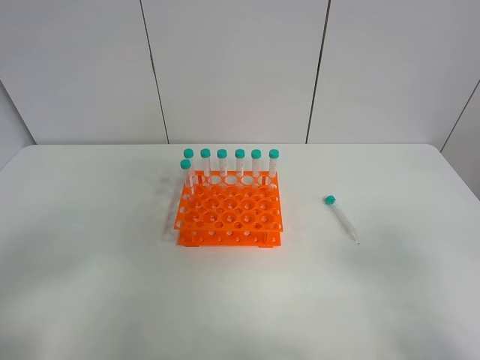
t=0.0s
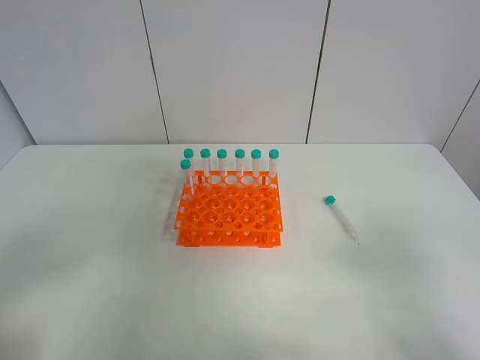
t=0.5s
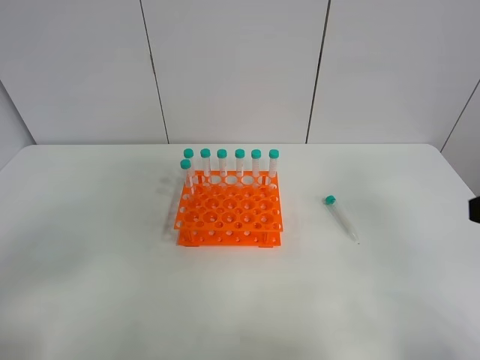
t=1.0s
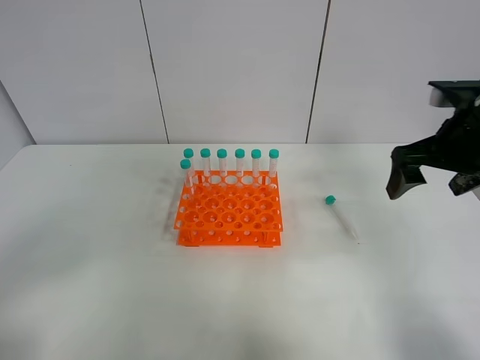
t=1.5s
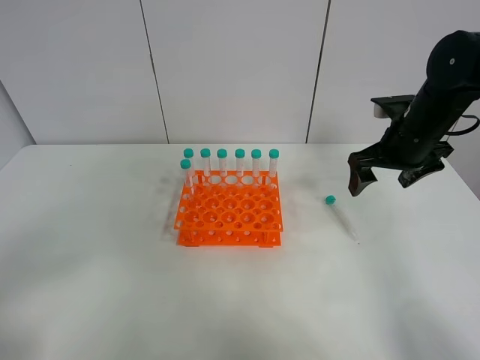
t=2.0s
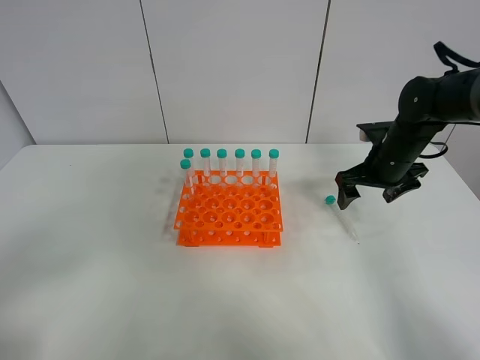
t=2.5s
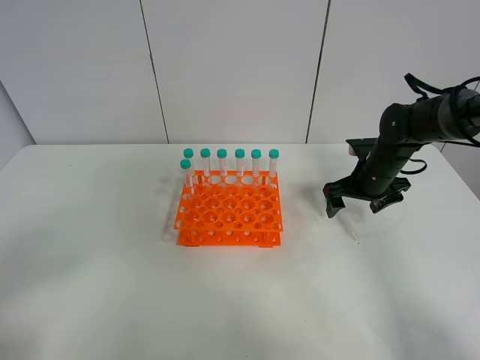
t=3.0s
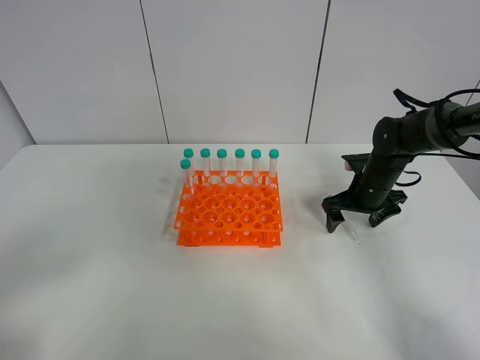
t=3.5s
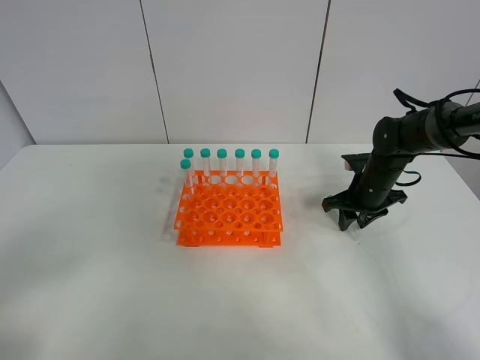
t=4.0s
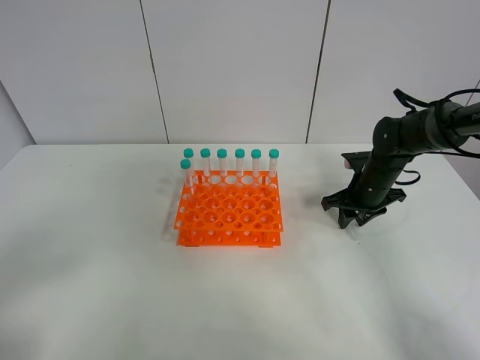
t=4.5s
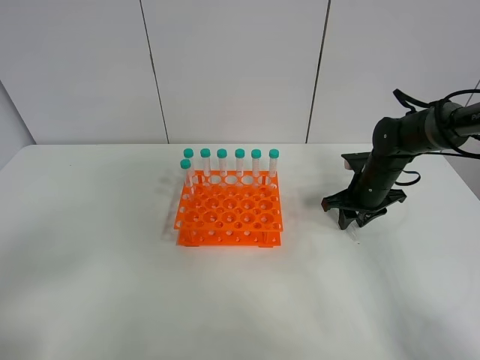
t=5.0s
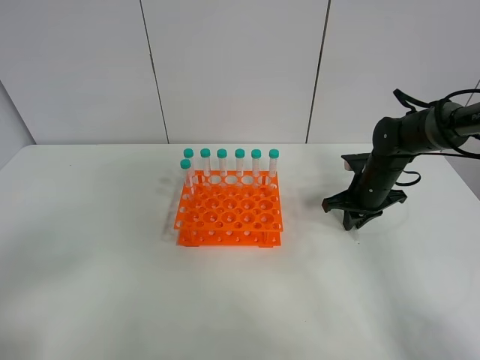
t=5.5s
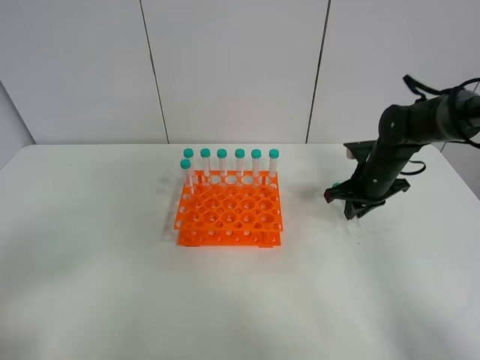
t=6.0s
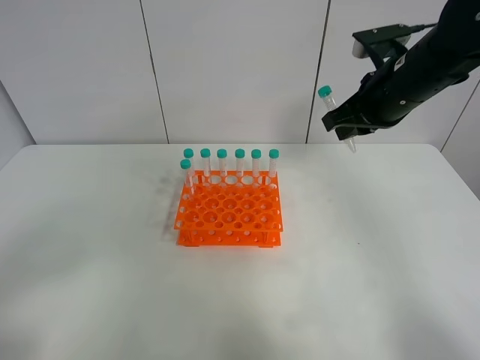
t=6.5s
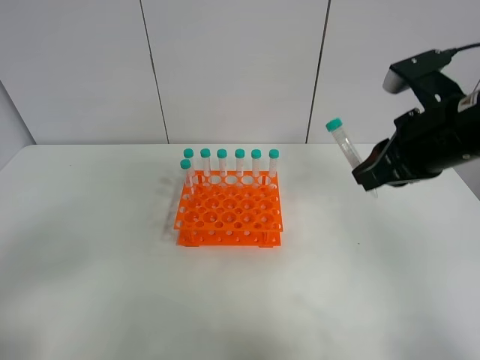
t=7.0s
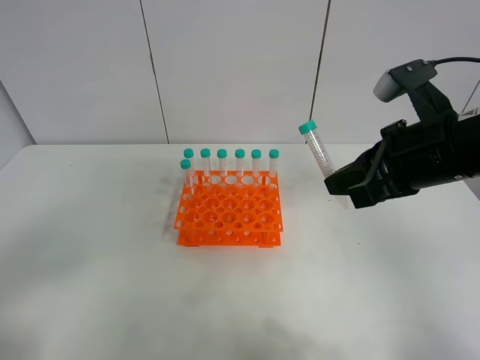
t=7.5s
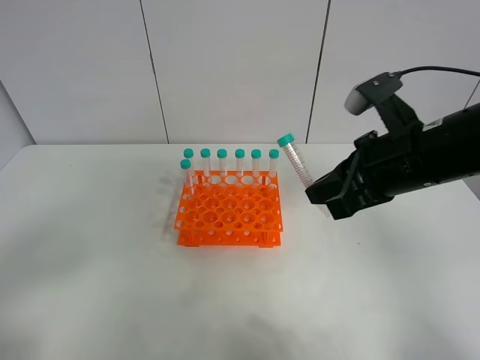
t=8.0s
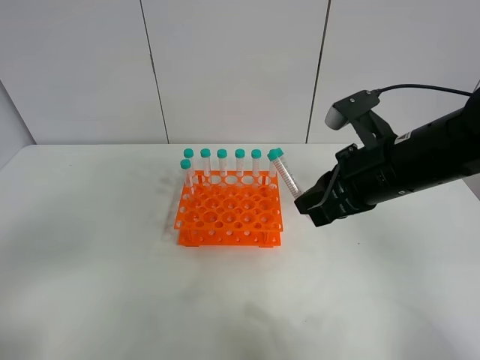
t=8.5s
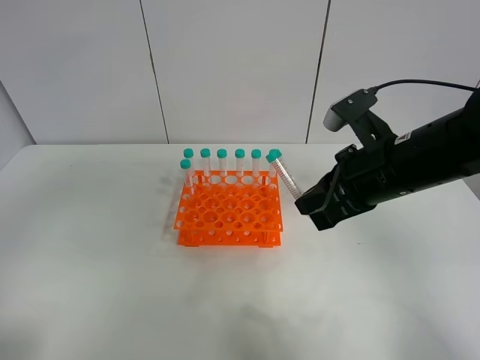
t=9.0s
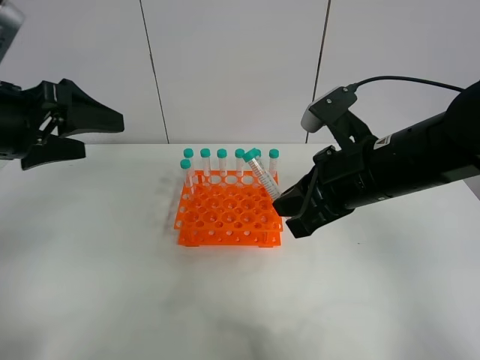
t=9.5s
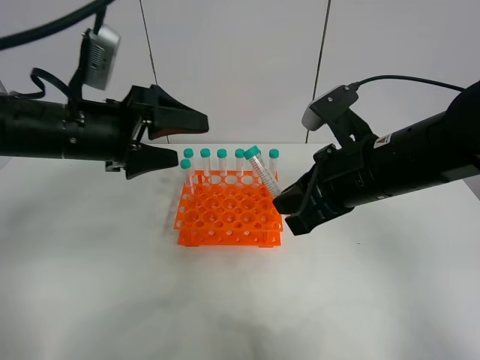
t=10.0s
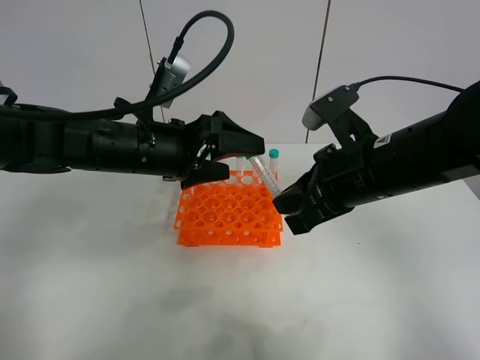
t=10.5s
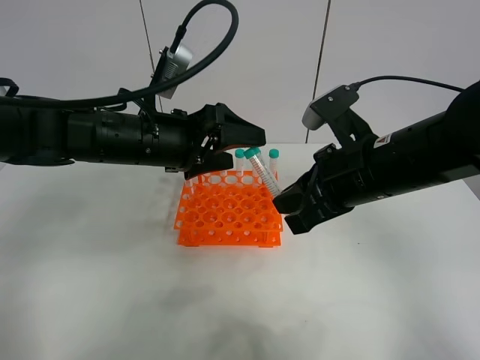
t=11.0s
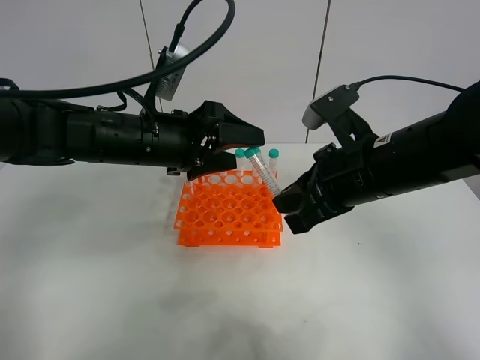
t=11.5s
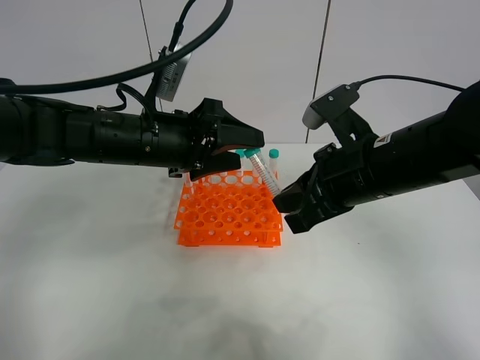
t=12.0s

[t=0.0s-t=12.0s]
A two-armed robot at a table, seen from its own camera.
Task of the whole recording: Put the test tube on the table back onto the test tube rack.
Step, t=0.0s to t=6.0s: Pick up the test tube with the right gripper.
t=0.0s to t=2.0s: The right gripper is displaced forward by about 35 cm.
t=2.0s to t=4.0s: The right gripper goes approximately 15 cm downward, and closes.
t=4.0s to t=6.0s: The grippers make only small movements.
t=6.0s to t=8.0s: The right gripper is displaced backward, upward and to the left by some 25 cm.
t=8.0s to t=10.0s: The left gripper travels forward and to the right by some 30 cm.
t=10.0s to t=12.0s: The left gripper goes some 5 cm to the right, and closes its fingers.

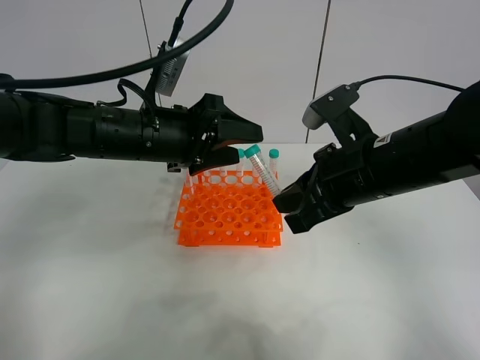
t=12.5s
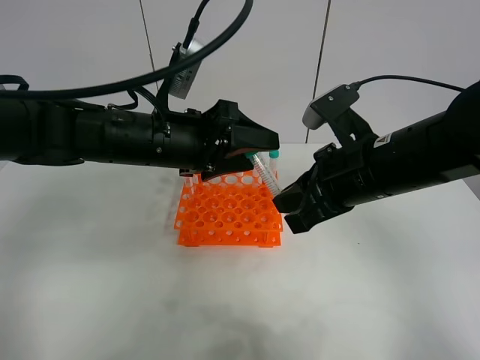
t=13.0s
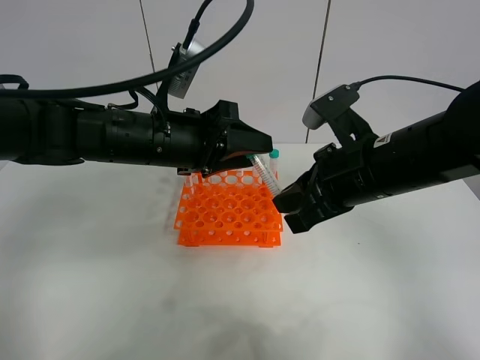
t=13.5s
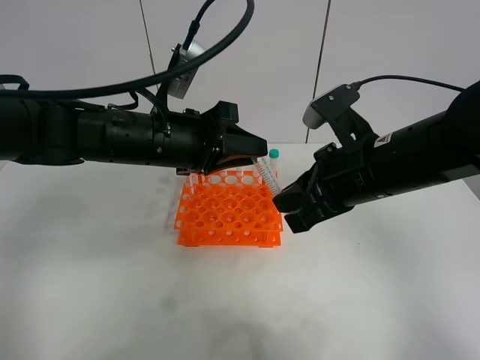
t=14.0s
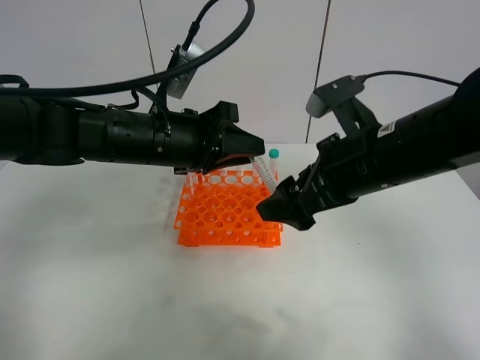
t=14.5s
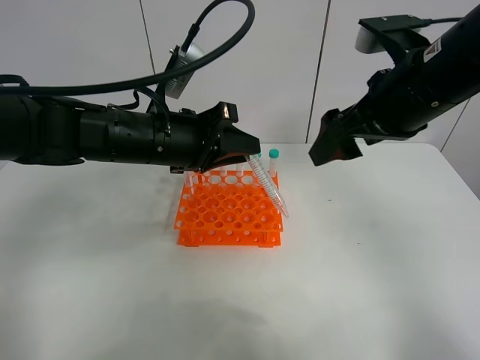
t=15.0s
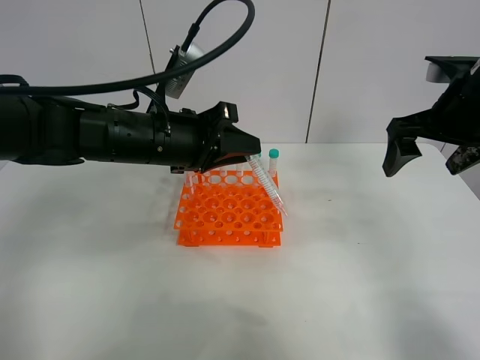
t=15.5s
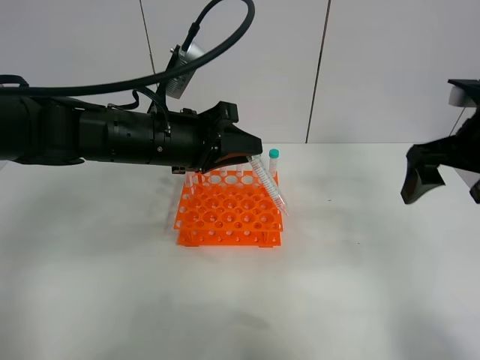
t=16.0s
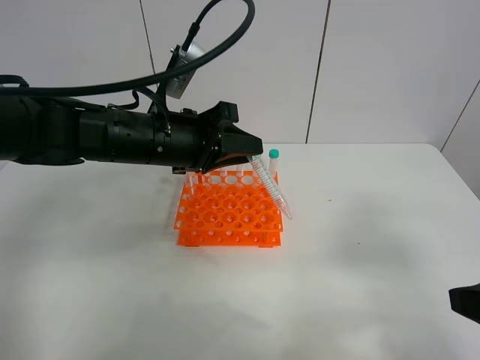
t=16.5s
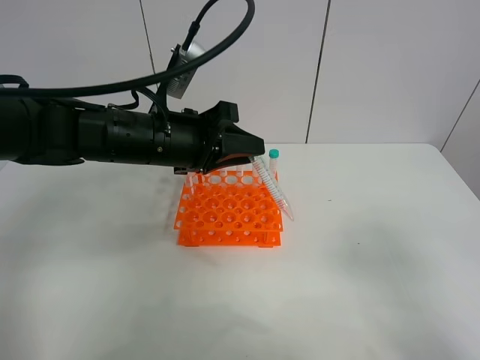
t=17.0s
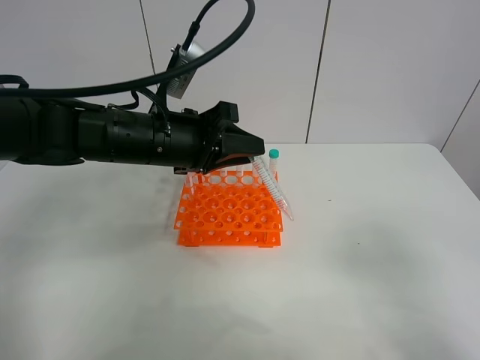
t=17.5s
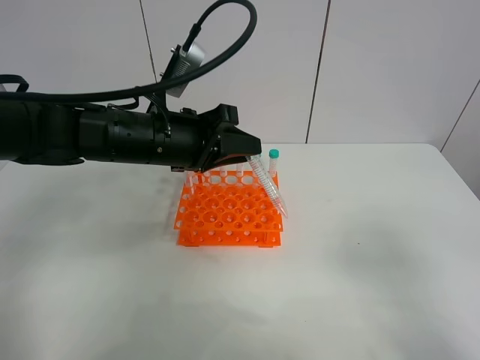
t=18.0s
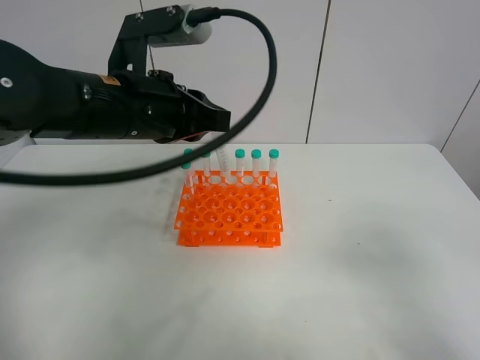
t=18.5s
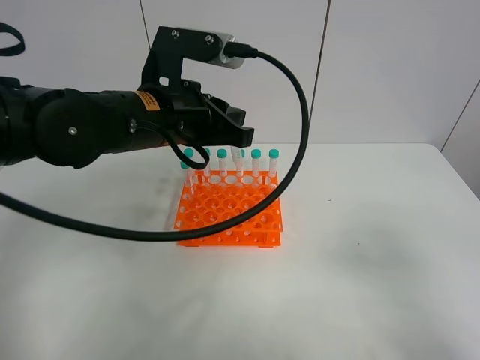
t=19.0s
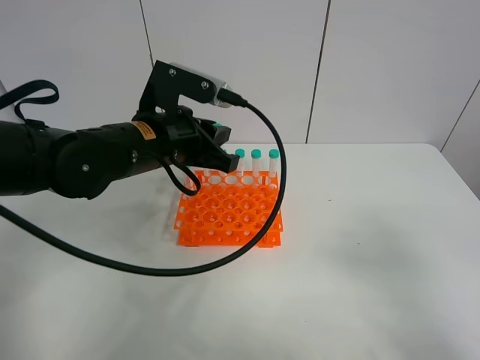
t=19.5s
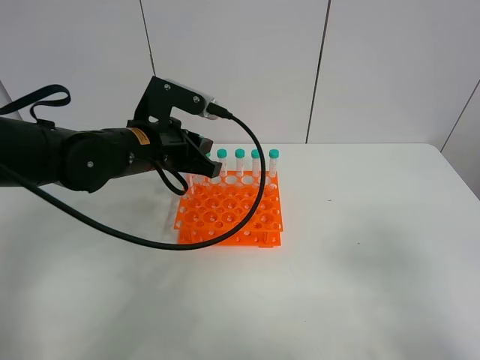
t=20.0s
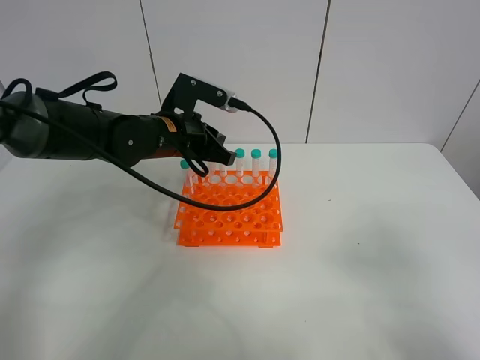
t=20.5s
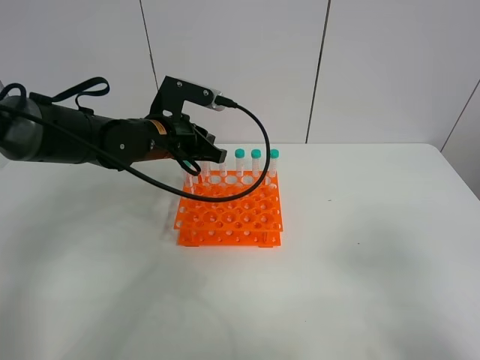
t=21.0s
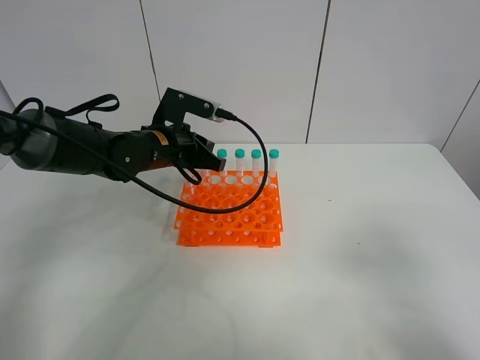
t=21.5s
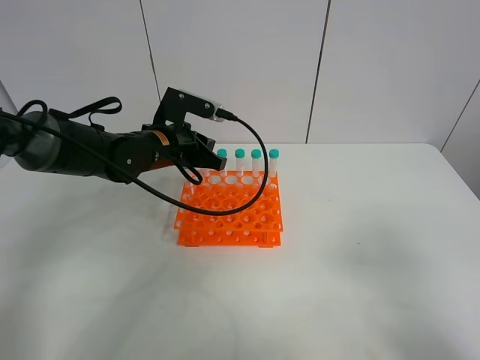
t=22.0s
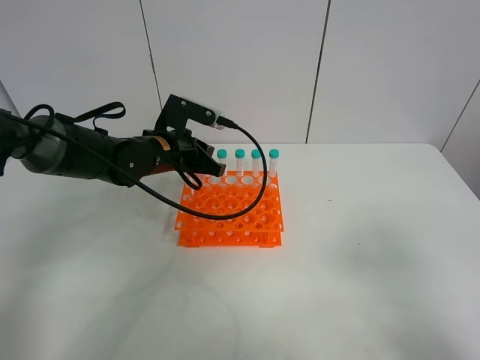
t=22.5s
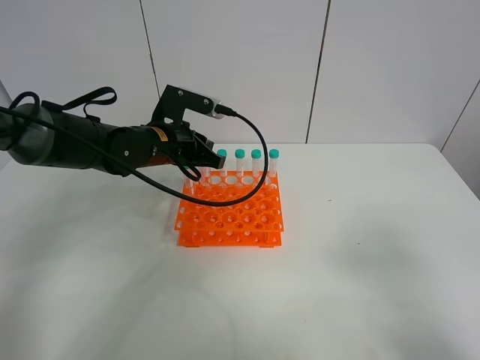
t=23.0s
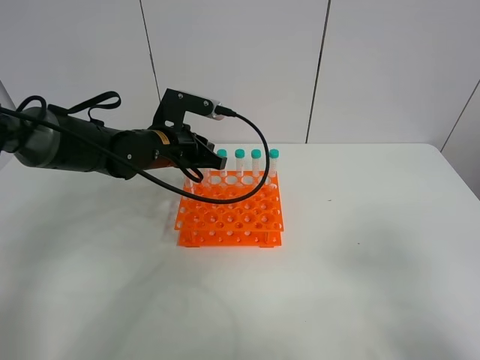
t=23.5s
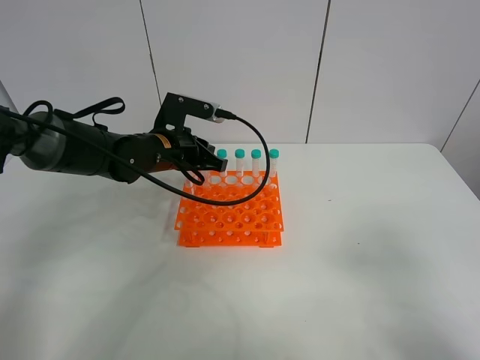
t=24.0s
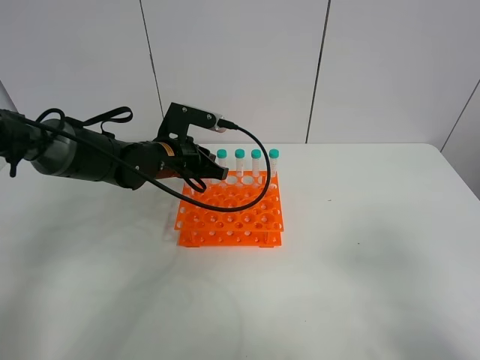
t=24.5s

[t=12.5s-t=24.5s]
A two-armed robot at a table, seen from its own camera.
Task of the whole recording: Put the test tube on the table back onto the test tube rack.
Step, t=12.5s to t=15.0s: Move the test tube from the right gripper to the left gripper.
t=12.5s to t=14.5s: The left gripper closes up; the right gripper opens up.
t=14.5s to t=16.5s: The right gripper heads backward and to the right, covering approximately 20 cm.
t=16.5s to t=18.5s: The right gripper goes approximately 10 cm backward. The left gripper travels upward by approximately 5 cm.
t=18.5s to t=20.5s: The left gripper moves forward and downward, roughly 15 cm.
t=20.5s to t=24.5s: The grippers make only small movements.

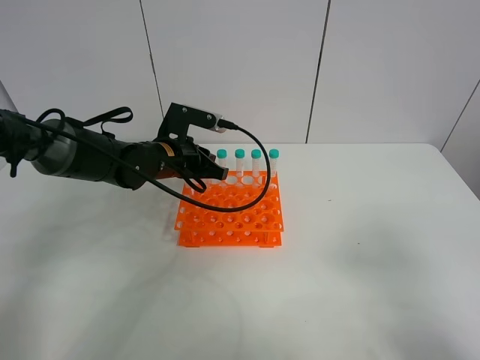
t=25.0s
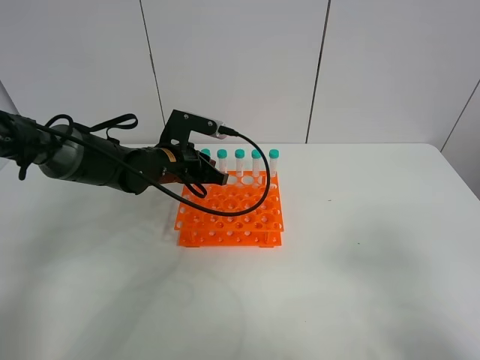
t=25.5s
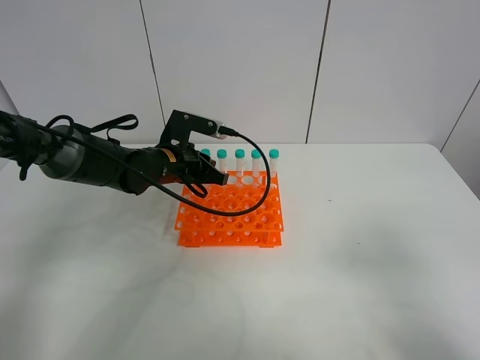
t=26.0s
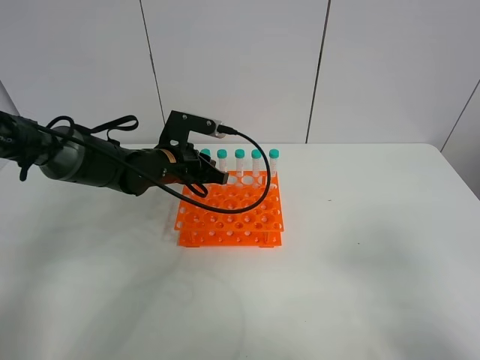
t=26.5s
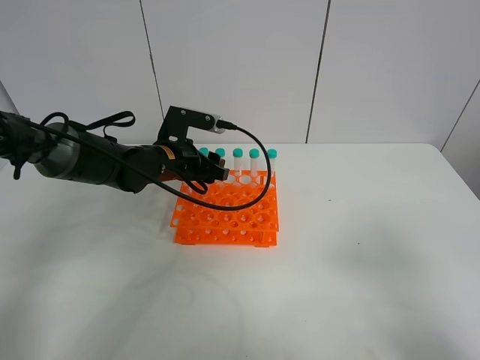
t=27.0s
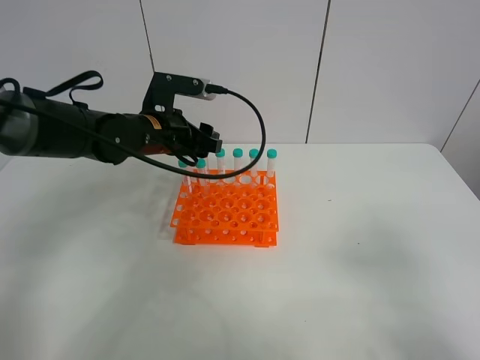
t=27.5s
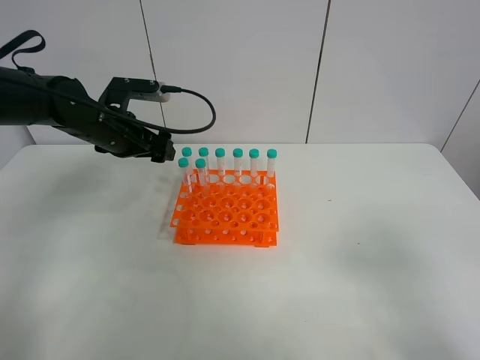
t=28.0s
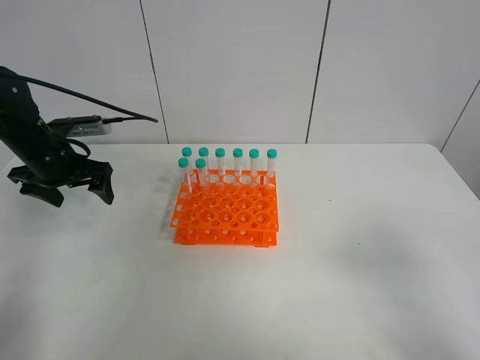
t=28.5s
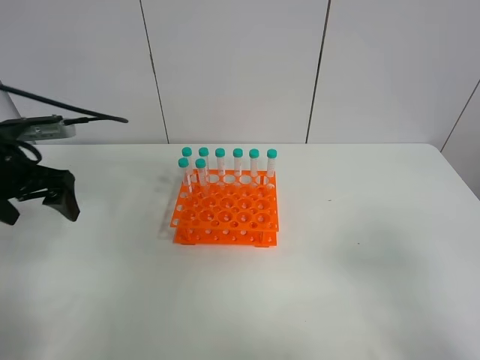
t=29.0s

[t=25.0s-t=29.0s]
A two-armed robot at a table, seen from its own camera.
Task of the whole recording: Put the test tube on the table back onto the test tube rack.
Step, t=25.0s to t=28.0s: Place the test tube on the test tube rack with the left gripper.
t=25.0s to t=27.0s: The left gripper opens up.
t=27.0s to t=29.0s: The left gripper goes approximately 25 cm to the left, backward and upward, and opens up.
